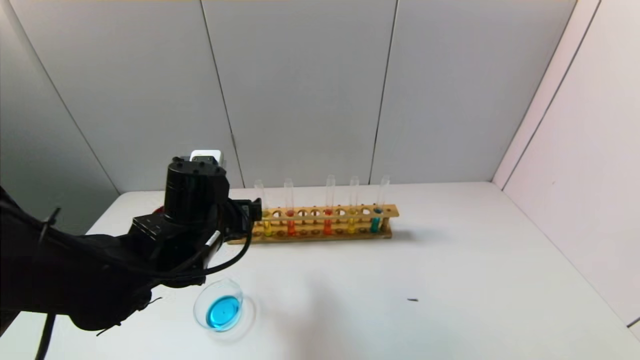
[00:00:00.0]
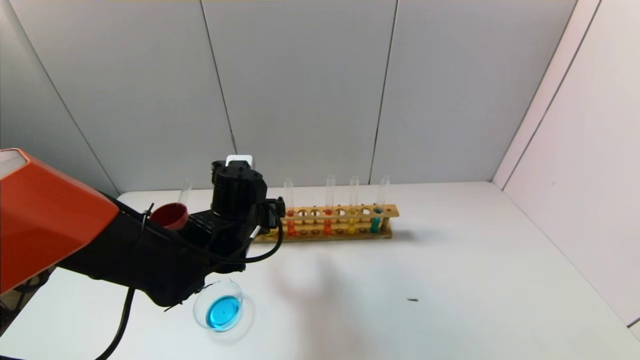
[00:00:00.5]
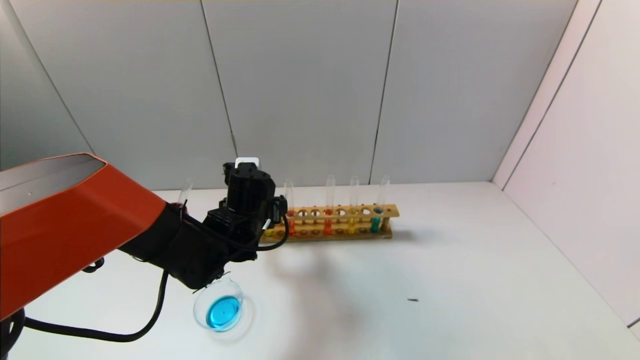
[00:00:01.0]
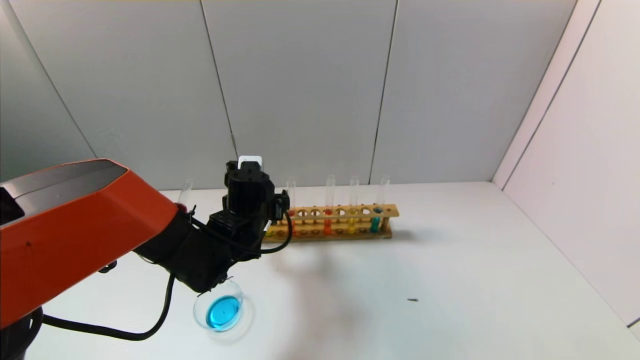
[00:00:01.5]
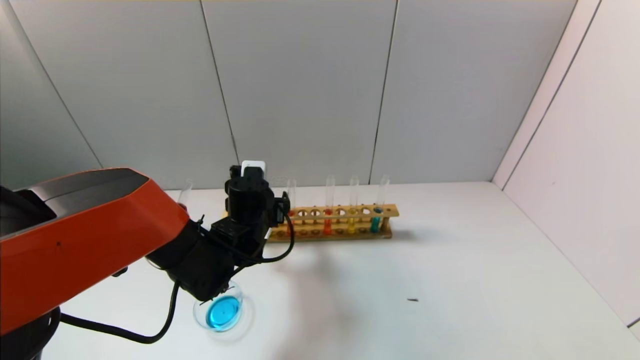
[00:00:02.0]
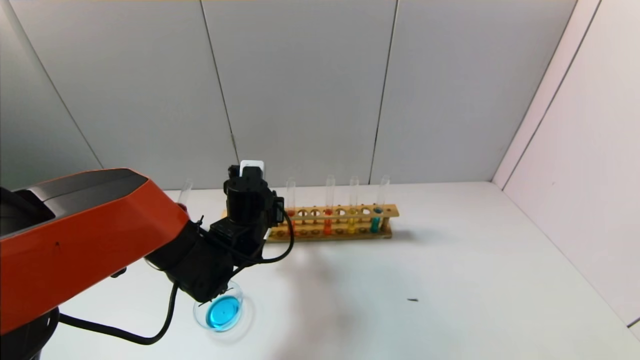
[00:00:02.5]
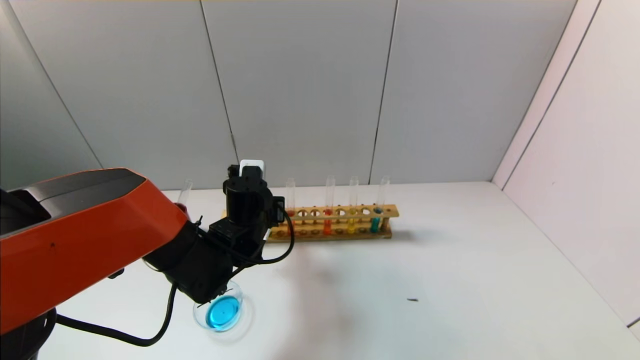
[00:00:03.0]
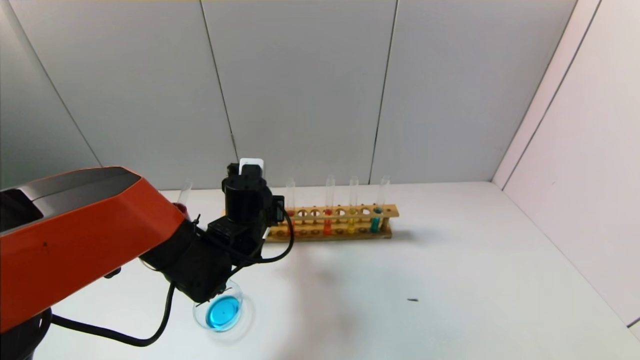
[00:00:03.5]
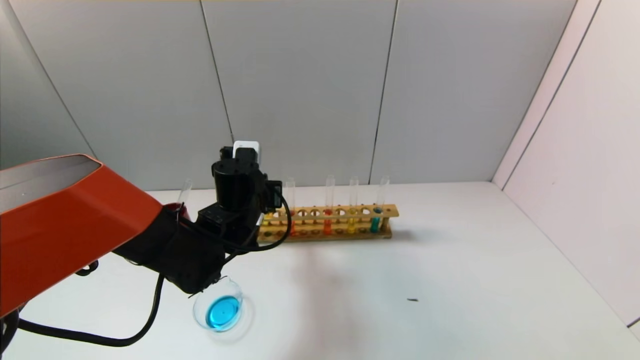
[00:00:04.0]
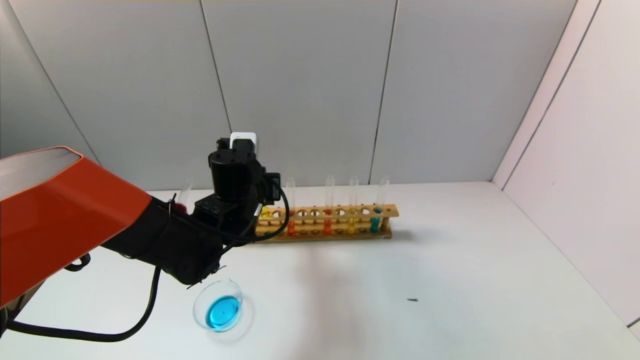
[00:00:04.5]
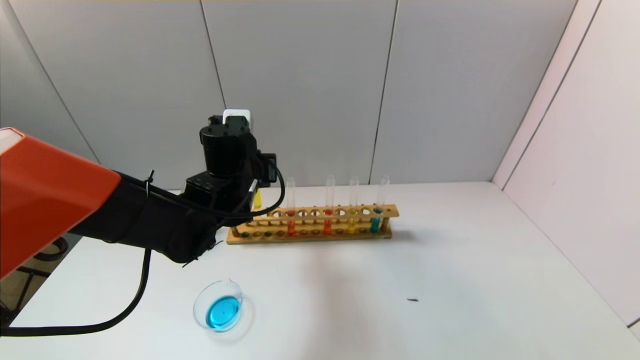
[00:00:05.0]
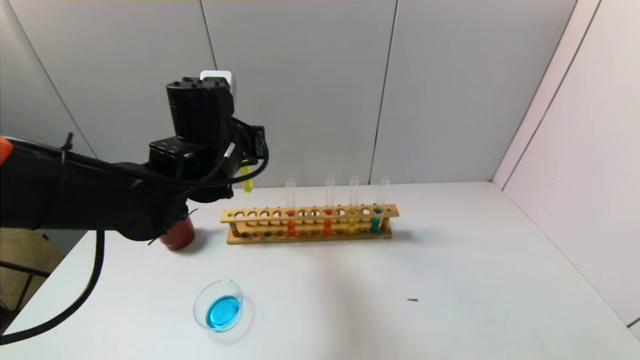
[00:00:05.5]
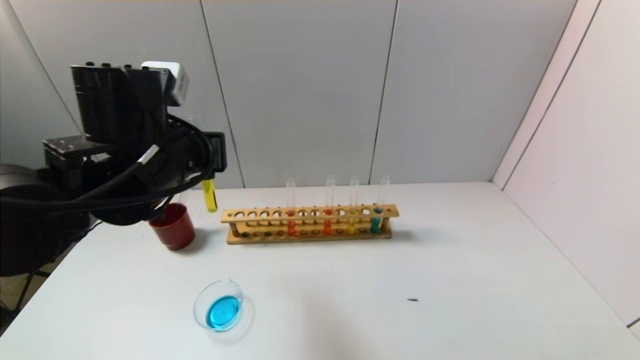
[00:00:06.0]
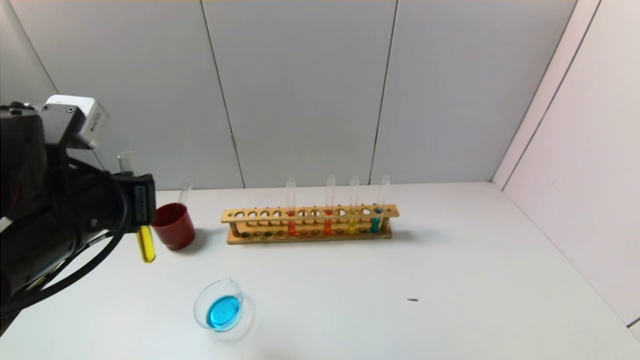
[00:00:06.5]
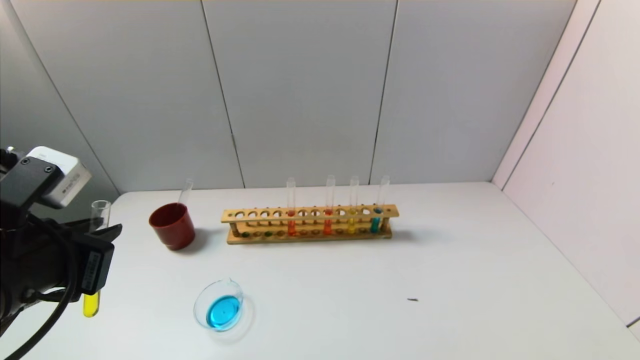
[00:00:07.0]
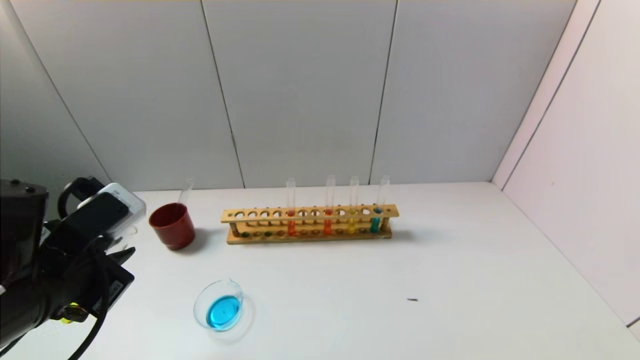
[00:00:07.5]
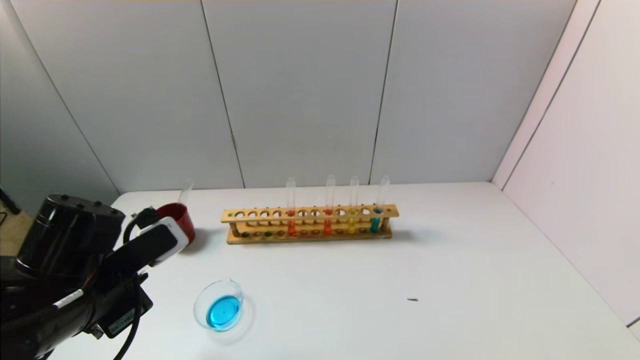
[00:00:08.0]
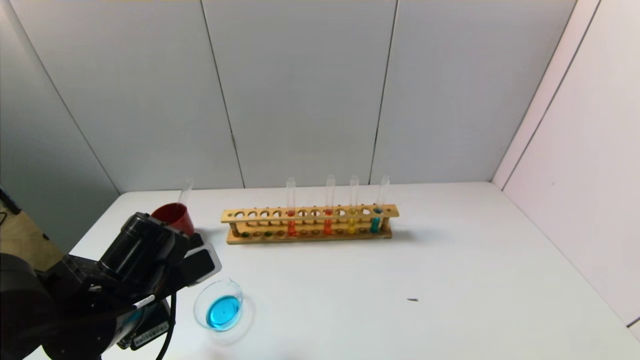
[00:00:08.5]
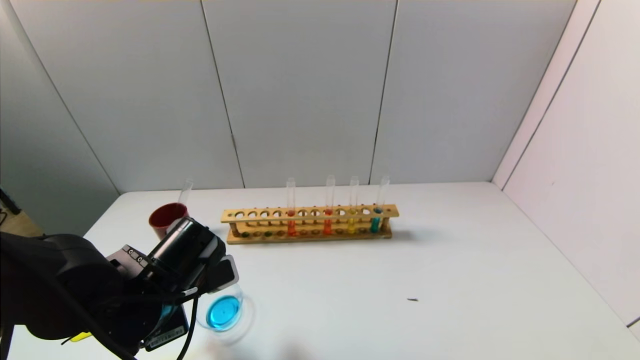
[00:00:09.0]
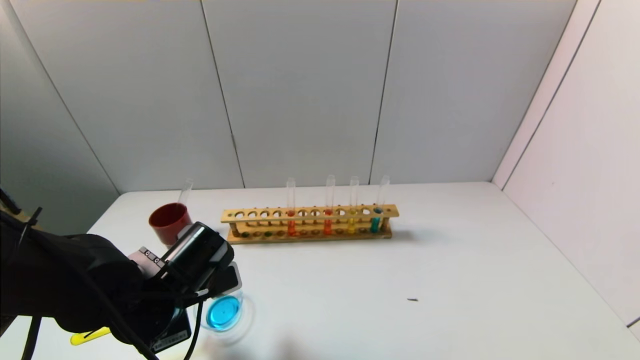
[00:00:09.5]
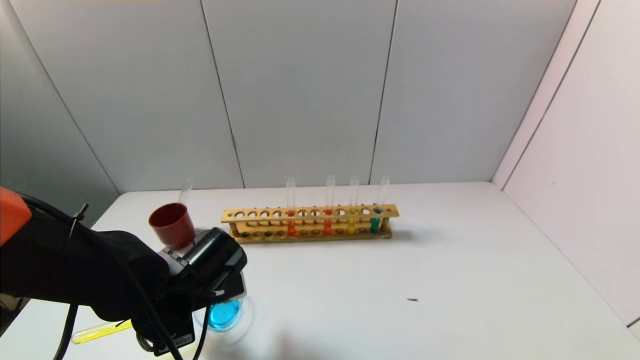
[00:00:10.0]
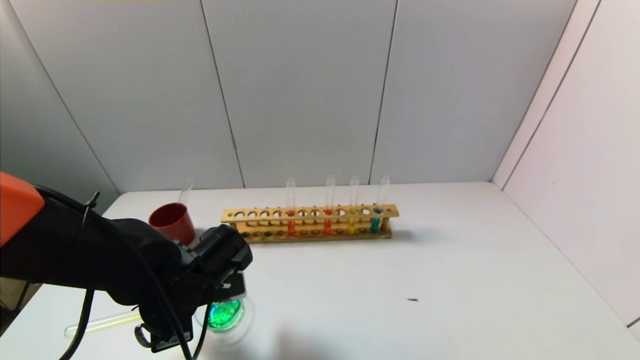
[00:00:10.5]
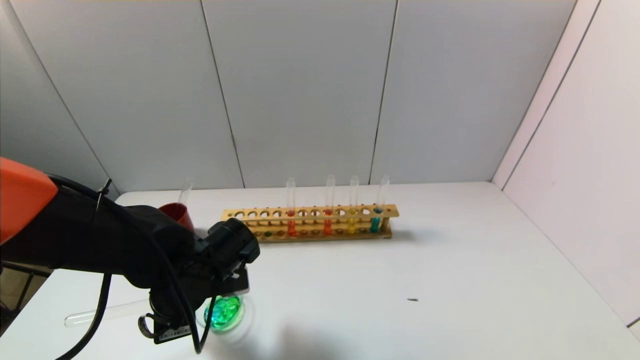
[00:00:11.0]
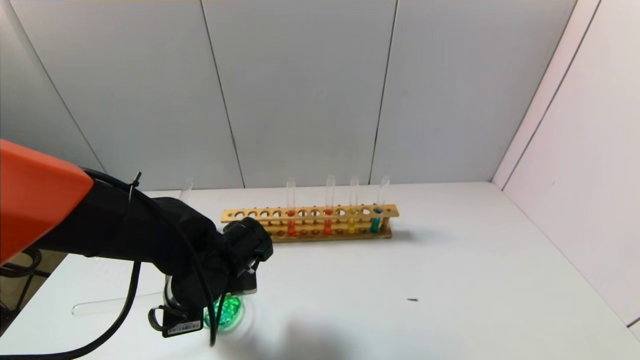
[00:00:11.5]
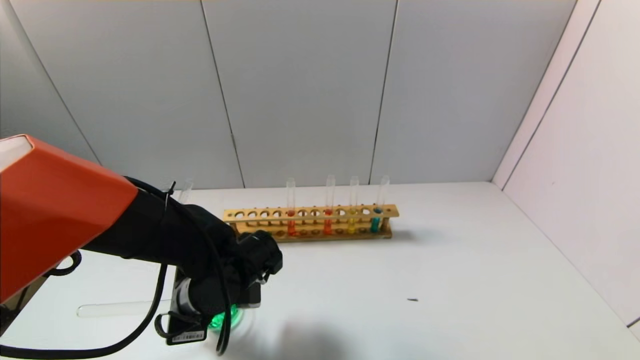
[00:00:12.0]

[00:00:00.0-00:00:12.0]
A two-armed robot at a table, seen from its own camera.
Task of the whole recording: pick up the test tube with yellow pigment and the test tube with blue pigment by grippers and pour them into the beaker.
Step, 00:00:00.0 to 00:00:03.0: Grasp the yellow reagent with the left gripper.
00:00:00.0 to 00:00:02.0: The left gripper moves forward and downward, roughly 10 cm.
00:00:02.0 to 00:00:04.0: The left gripper closes its fingers.
00:00:04.0 to 00:00:06.0: The left gripper heads upward, backward and to the left, covering roughly 15 cm.
00:00:06.0 to 00:00:08.0: The left gripper is displaced downward, backward and to the left by roughly 15 cm.
00:00:08.0 to 00:00:10.0: The left gripper heads downward, covering approximately 5 cm.
00:00:10.0 to 00:00:12.0: The grippers stay close to where they were, moving slightly.

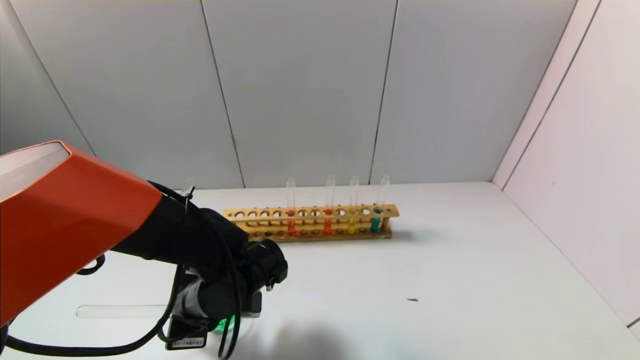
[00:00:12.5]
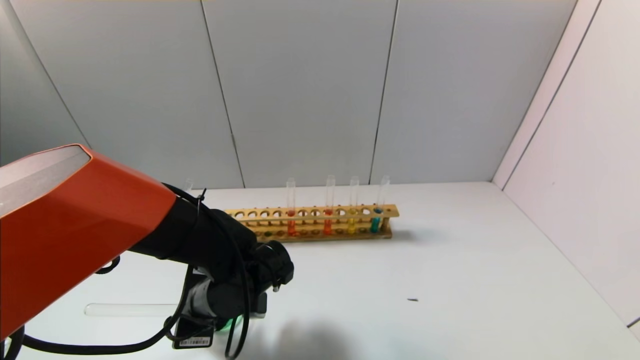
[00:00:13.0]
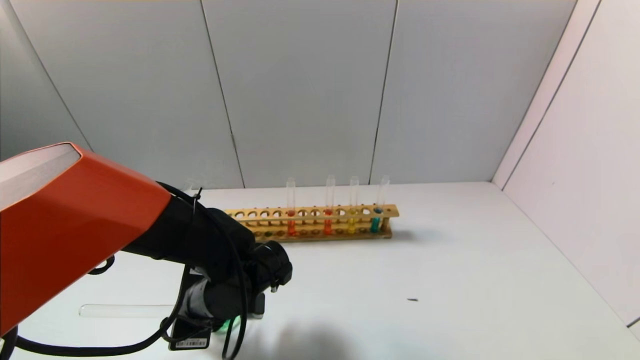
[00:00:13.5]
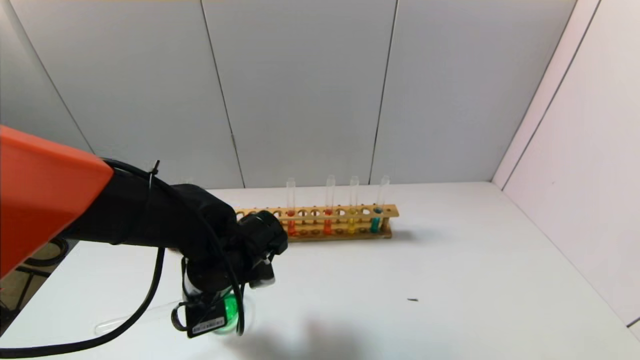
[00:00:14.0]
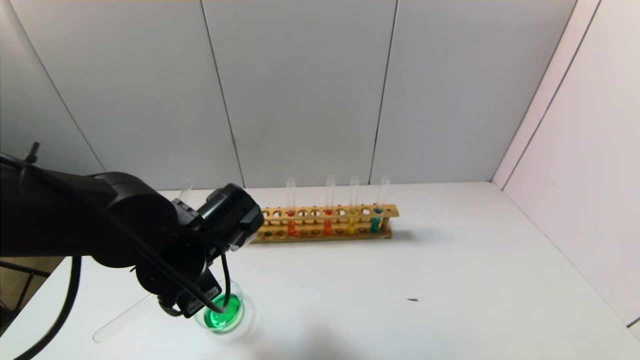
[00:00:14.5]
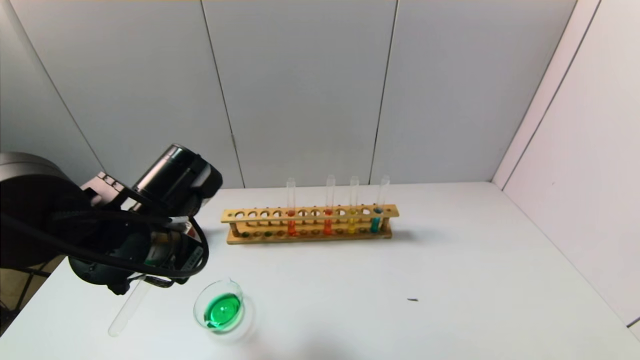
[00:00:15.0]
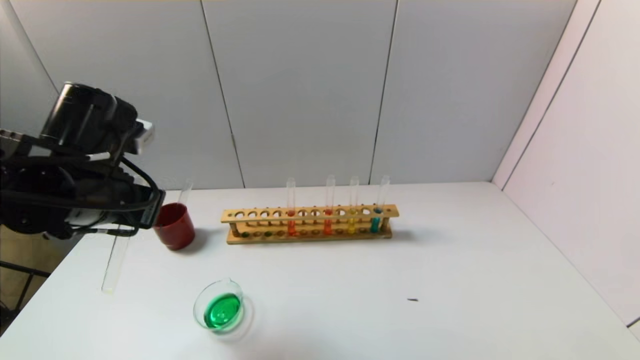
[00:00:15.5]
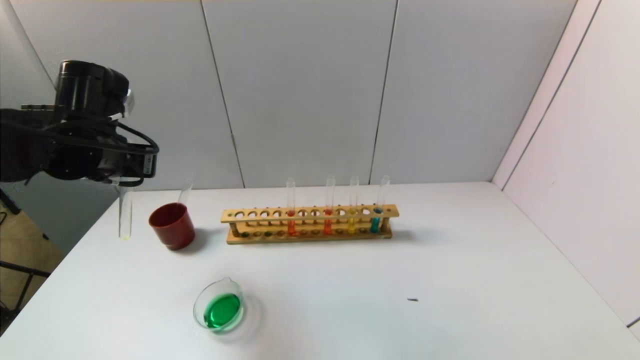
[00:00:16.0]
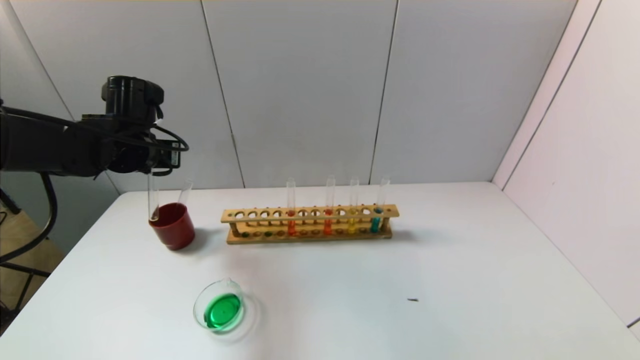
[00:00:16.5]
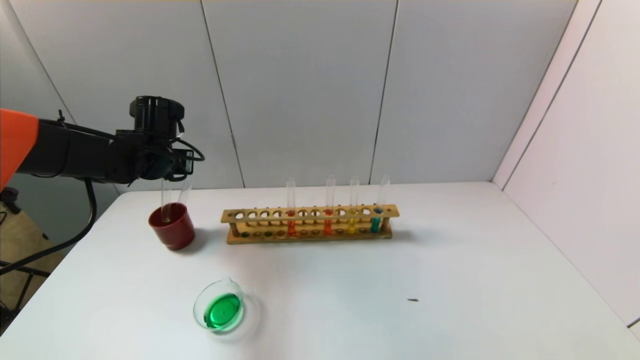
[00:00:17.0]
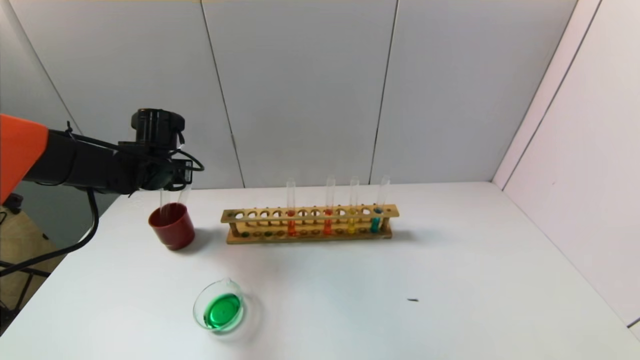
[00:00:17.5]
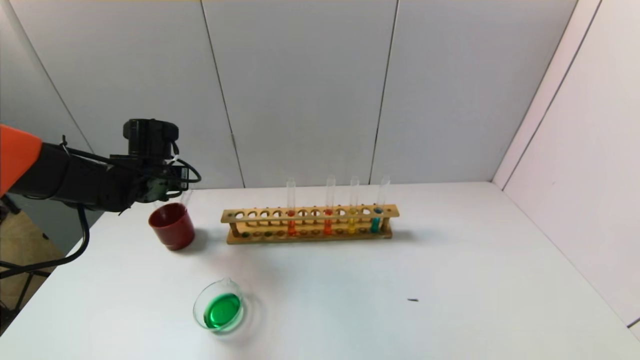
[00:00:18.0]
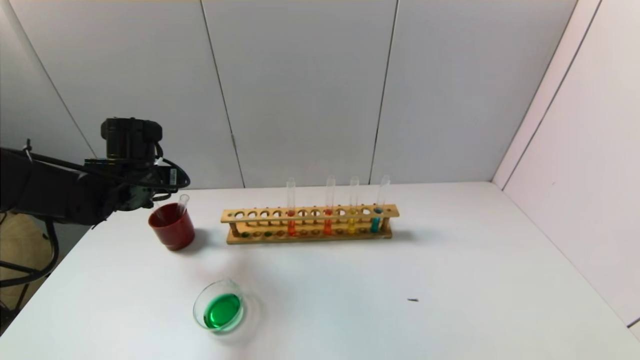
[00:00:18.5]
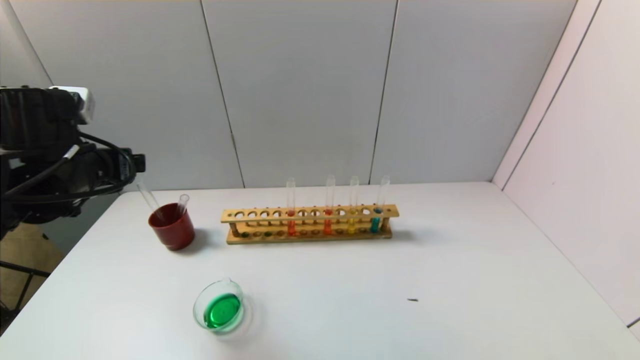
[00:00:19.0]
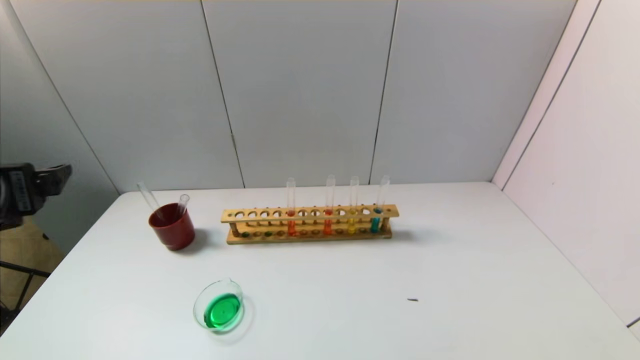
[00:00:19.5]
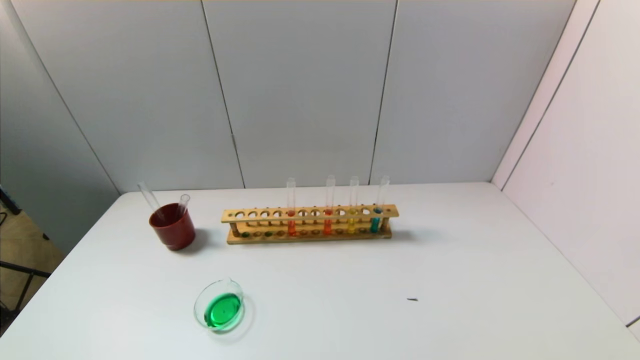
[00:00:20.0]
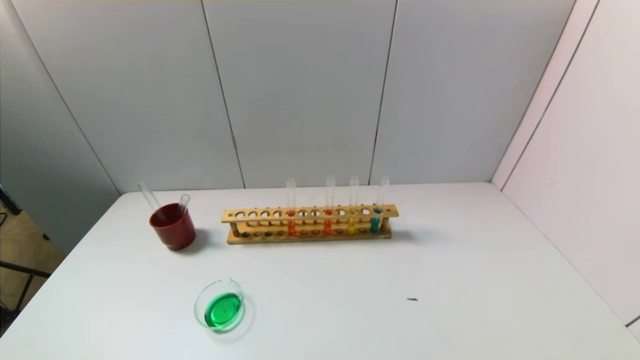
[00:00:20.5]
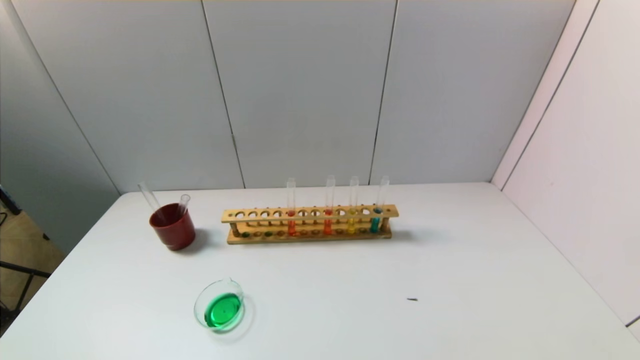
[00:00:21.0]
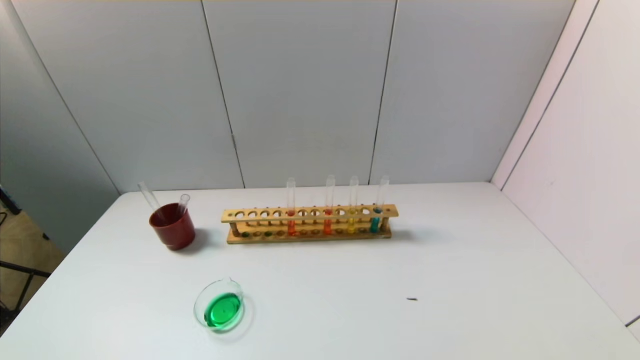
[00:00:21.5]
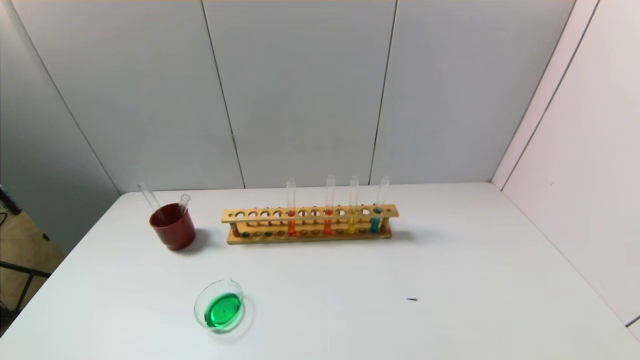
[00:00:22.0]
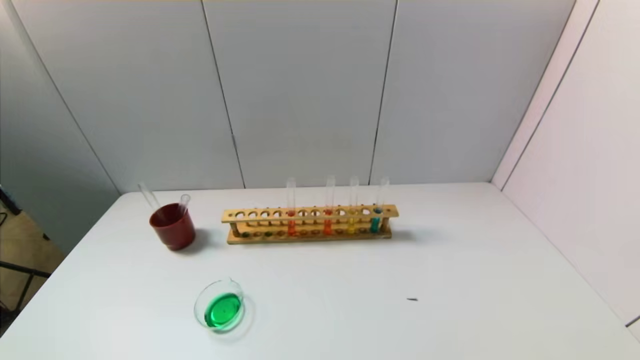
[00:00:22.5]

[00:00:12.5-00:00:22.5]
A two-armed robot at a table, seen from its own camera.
Task of the whole recording: pick up the test tube with yellow pigment and the test tube with blue pigment by grippers and pour them into the beaker.
Step, 00:00:13.5 to 00:00:18.0: Place the test tube into the brown cup with the left gripper.
00:00:12.5 to 00:00:14.5: The left gripper goes approximately 10 cm upward.
00:00:14.5 to 00:00:16.5: The left gripper travels forward, to the left and upward by some 20 cm.
00:00:16.5 to 00:00:18.5: The left gripper opens up.
00:00:18.5 to 00:00:20.5: The left gripper moves backward, some 40 cm.
